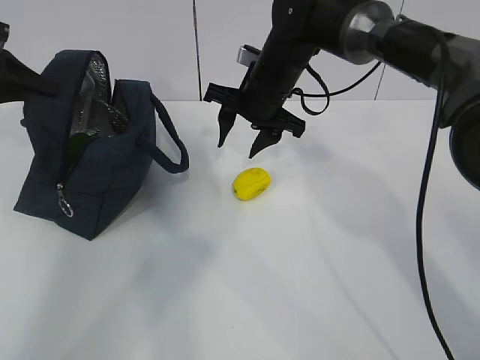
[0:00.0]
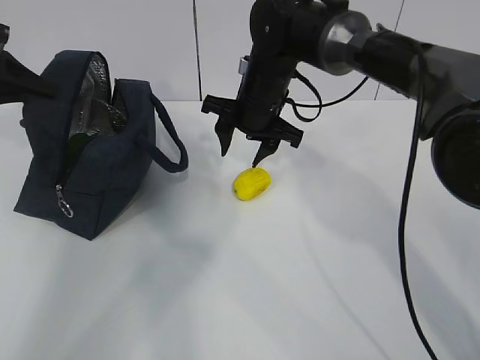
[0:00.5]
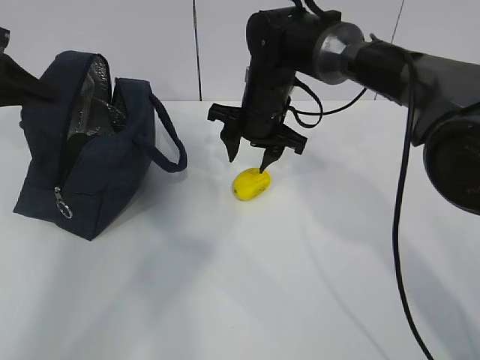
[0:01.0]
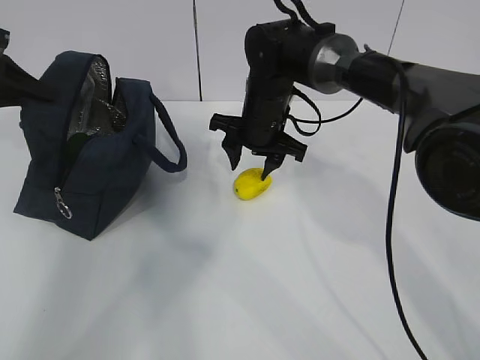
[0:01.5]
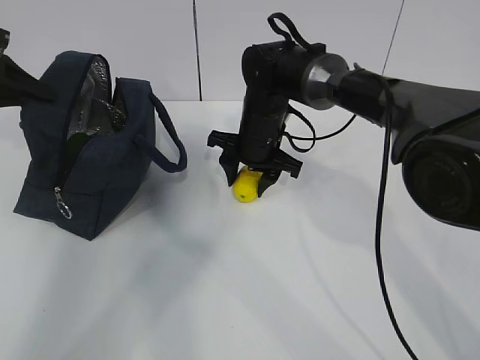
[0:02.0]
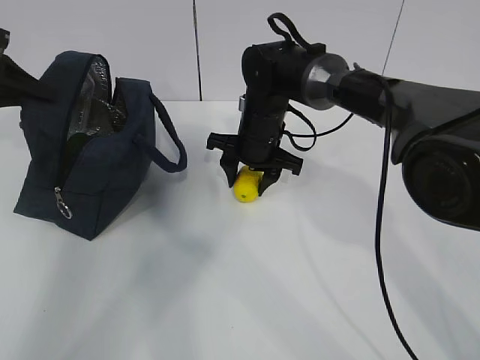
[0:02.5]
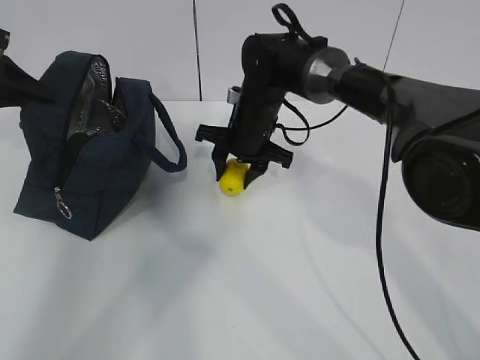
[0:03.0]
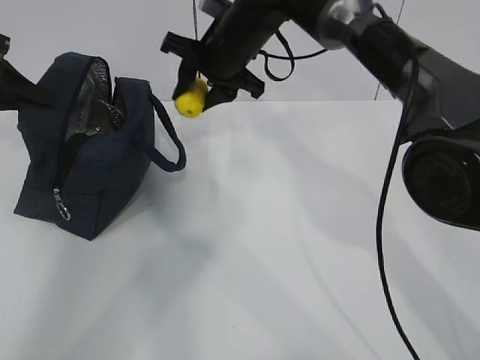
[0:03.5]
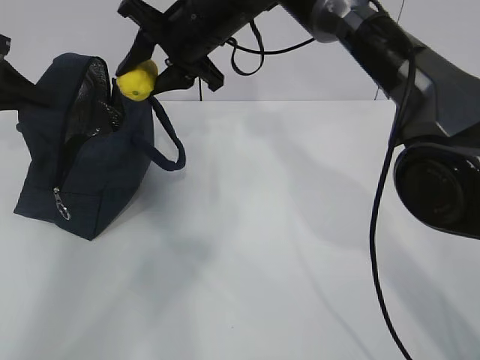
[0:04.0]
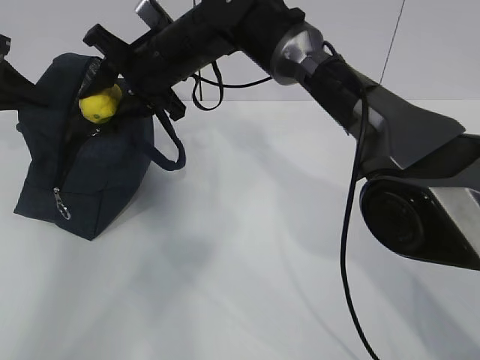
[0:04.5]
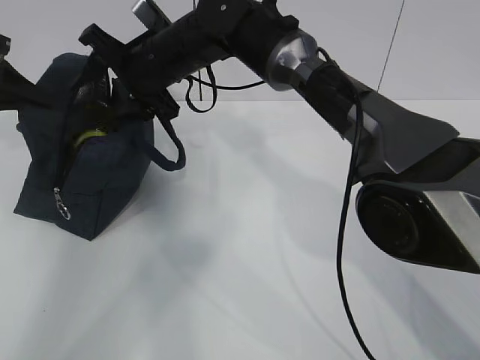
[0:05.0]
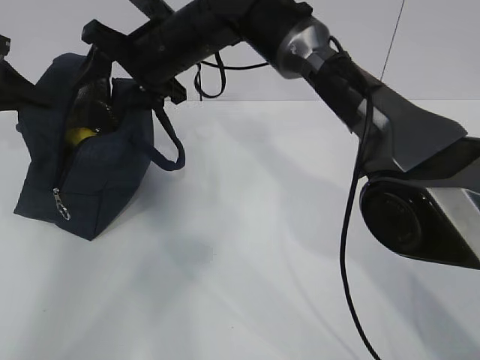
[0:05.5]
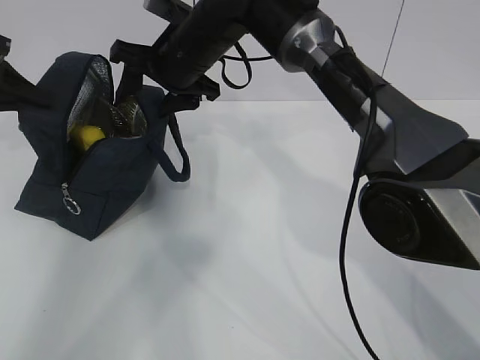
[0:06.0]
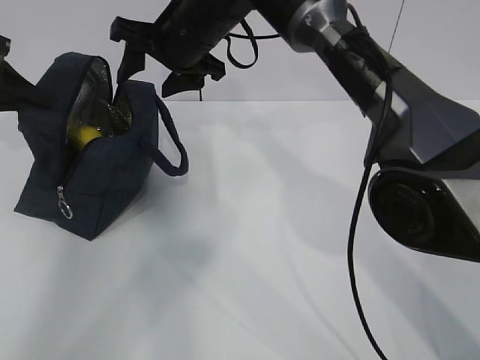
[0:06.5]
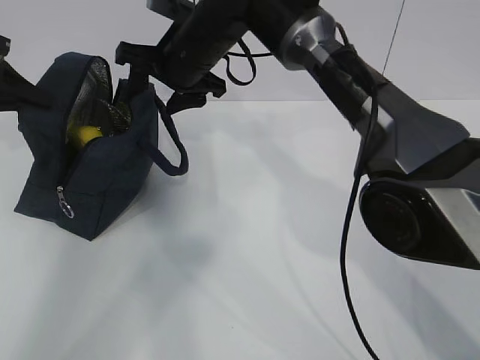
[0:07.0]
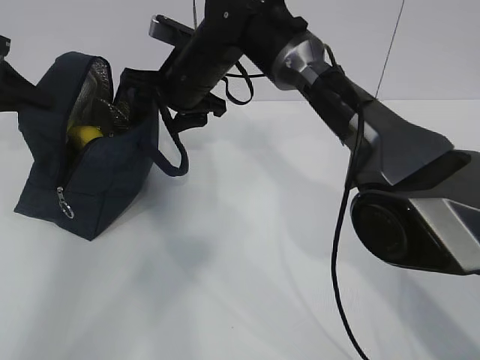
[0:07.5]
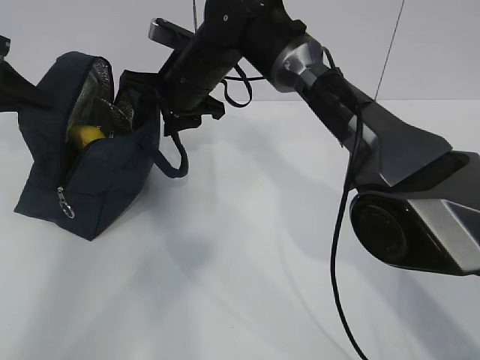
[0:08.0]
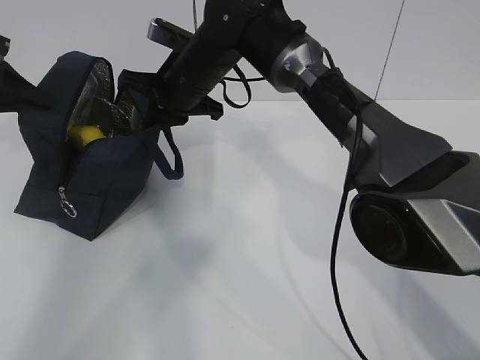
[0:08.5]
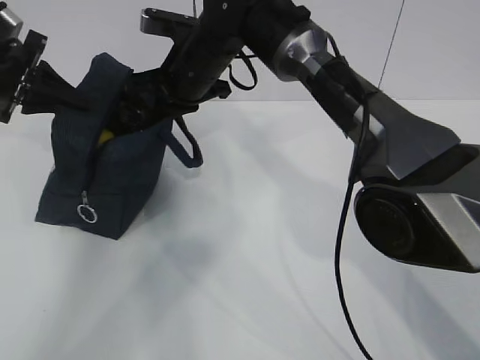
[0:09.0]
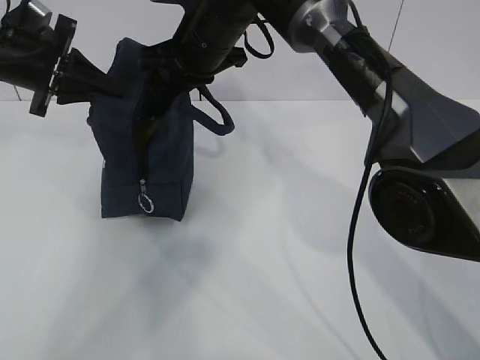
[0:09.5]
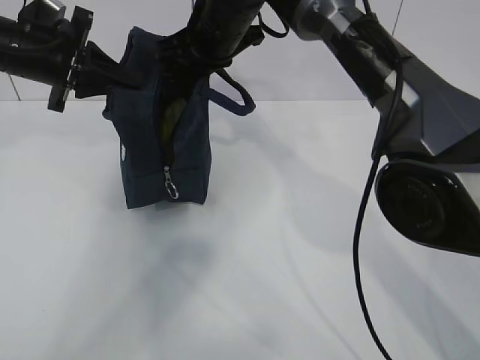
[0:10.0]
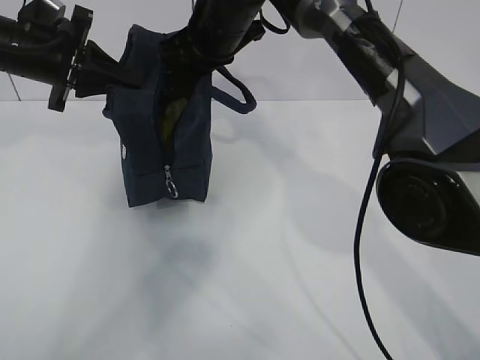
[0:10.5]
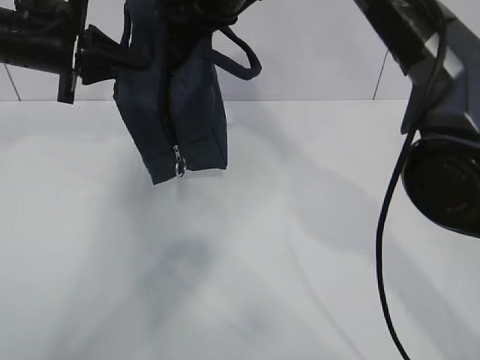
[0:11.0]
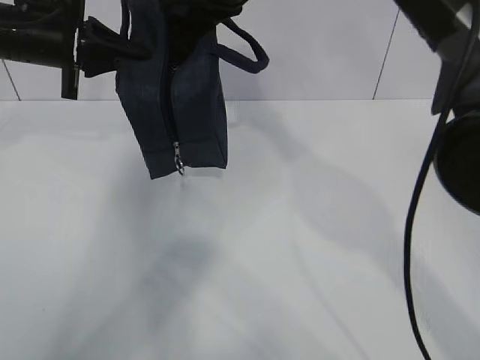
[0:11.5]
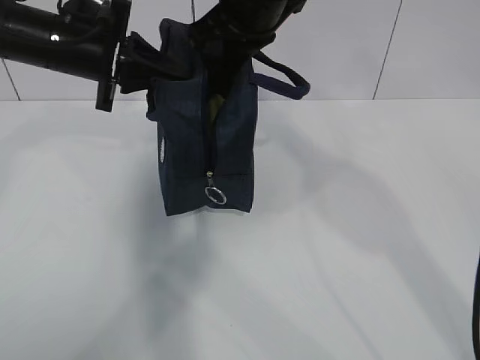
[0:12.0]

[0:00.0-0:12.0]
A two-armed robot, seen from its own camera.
Step, 0:00.0 to 0:02.5: Grasp the lemon with the right gripper.
Step, 0:03.0 to 0:06.5: Place the lemon into the package with the right gripper.
0:00.0 to 0:02.0: The right gripper is displaced downward by about 5 cm.
0:02.0 to 0:04.0: The right gripper goes roughly 15 cm upward.
0:06.0 to 0:08.0: There are only small adjustments of the grippers.
0:08.0 to 0:10.0: The right gripper goes roughly 5 cm upward, and closes up, while the left gripper shifts approximately 10 cm to the right.
0:10.0 to 0:12.0: The left gripper moves to the right, approximately 5 cm. Meanwhile the right gripper goes about 5 cm upward.

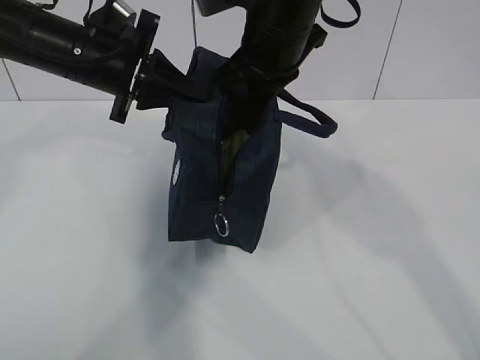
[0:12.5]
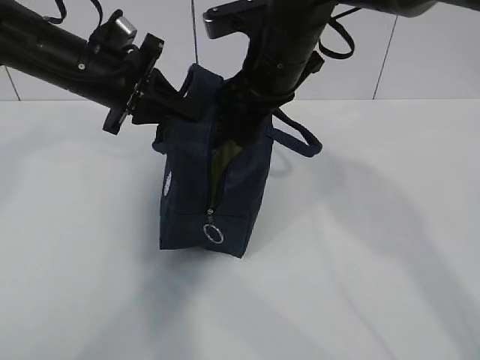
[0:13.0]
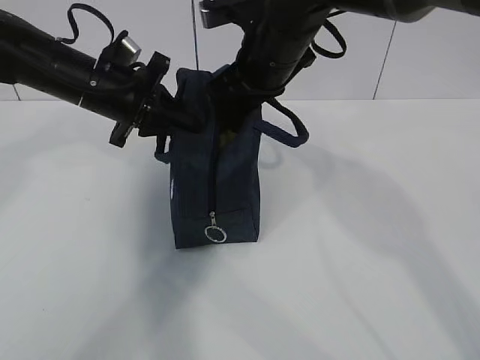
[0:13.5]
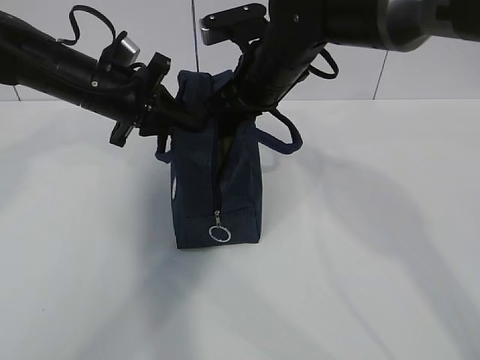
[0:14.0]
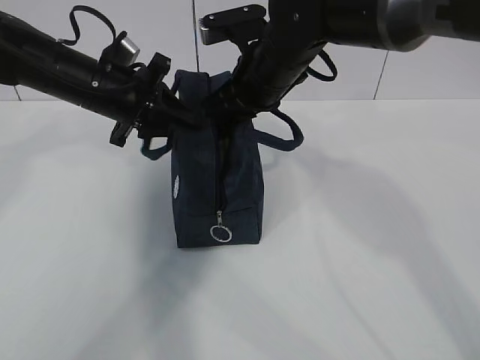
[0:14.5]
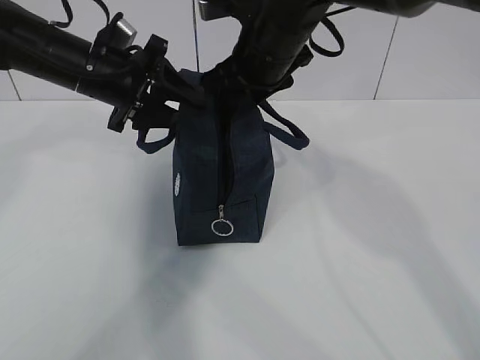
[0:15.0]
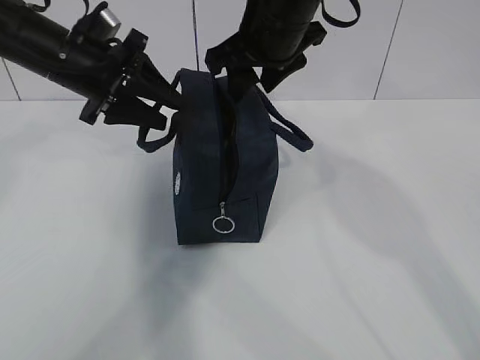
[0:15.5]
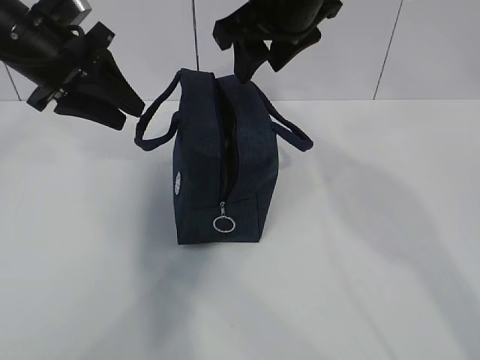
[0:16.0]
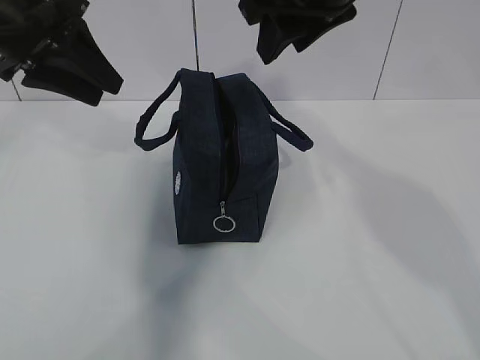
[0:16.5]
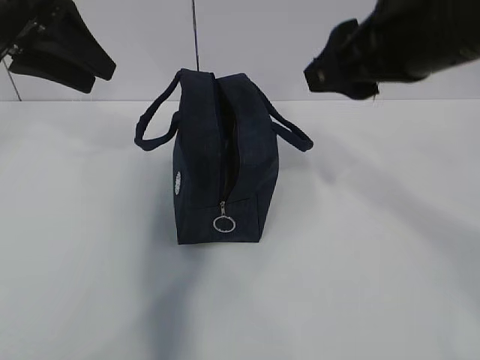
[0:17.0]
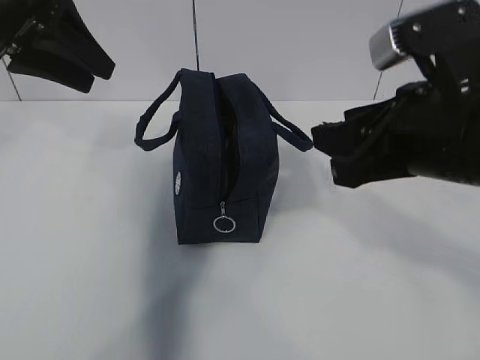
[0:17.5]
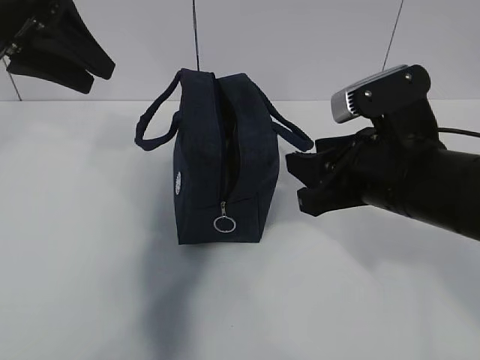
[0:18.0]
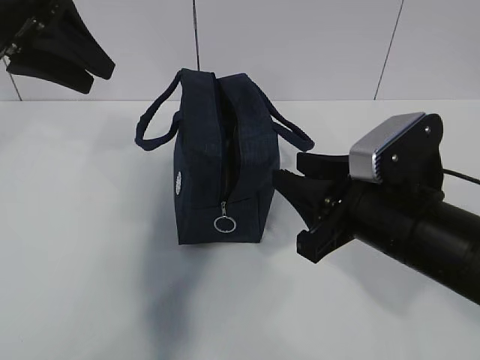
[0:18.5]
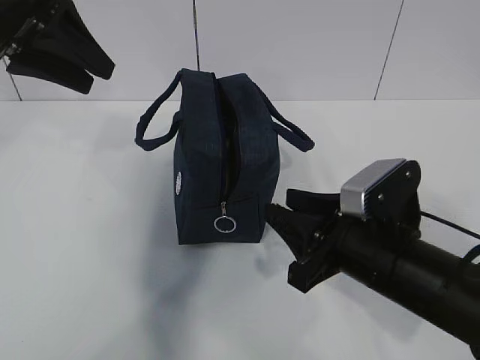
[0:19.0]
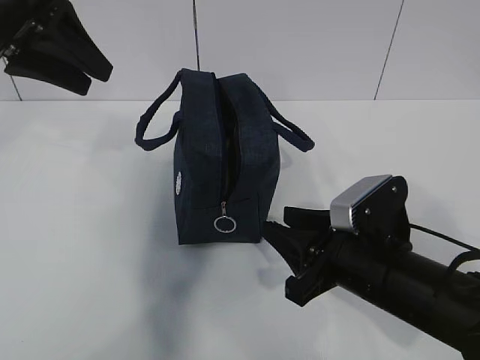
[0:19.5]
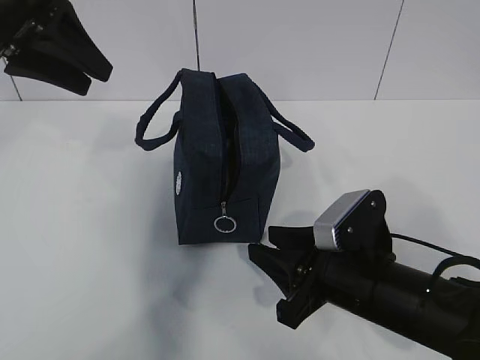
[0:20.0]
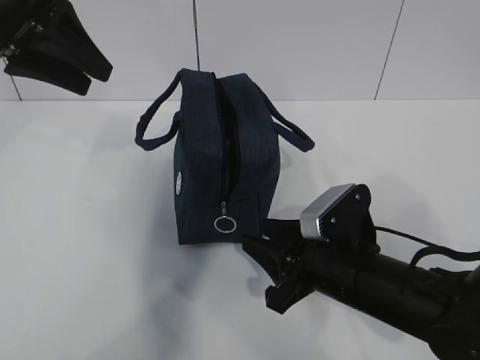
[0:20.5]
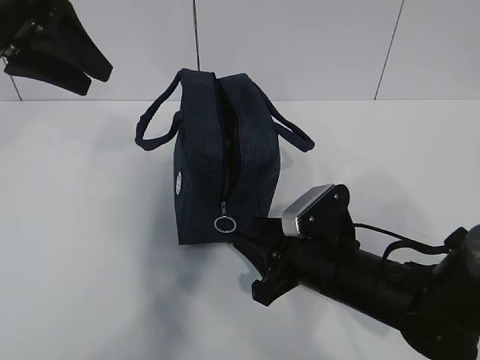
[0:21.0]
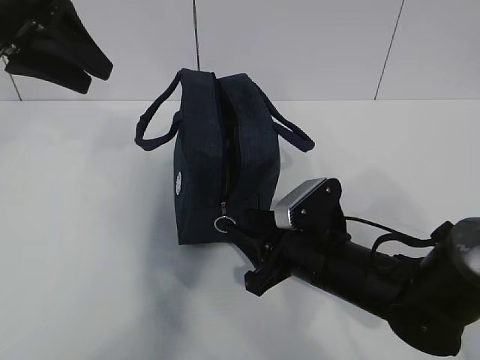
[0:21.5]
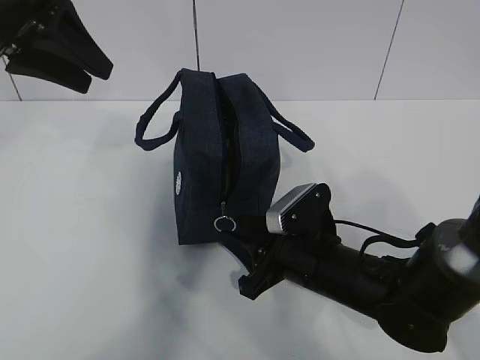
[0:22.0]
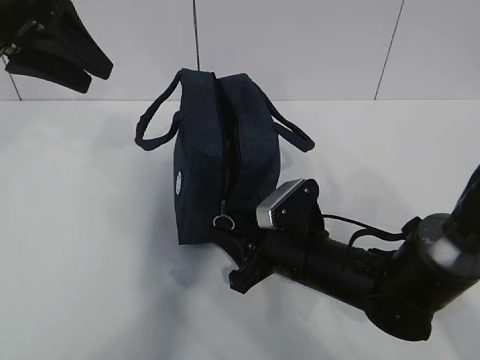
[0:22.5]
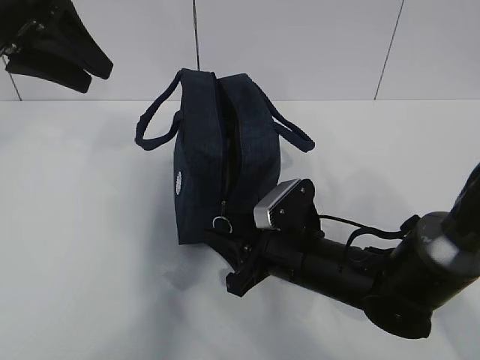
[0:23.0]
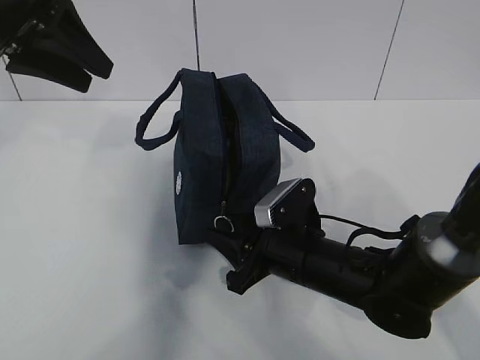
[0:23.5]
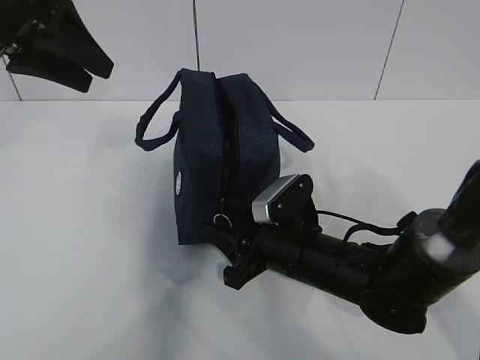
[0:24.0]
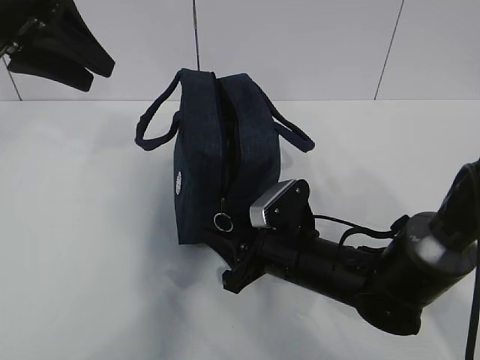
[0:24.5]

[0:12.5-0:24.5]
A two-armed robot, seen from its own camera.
0:12.5 to 0:14.5: The left gripper moves roughly 5 cm. Meanwhile the right gripper is displaced downward by roughly 5 cm.
0:14.5 to 0:16.5: The right gripper shifts roughly 15 cm upward and backward, and opens up. Meanwhile the left gripper heads upward, to the left and backward, covering about 15 cm, and opens.
0:16.5 to 0:18.5: The right gripper is displaced downward and backward by some 20 cm.
0:18.5 to 0:20.5: The right gripper travels downward by some 10 cm.
0:20.5 to 0:22.5: The right gripper moves some 5 cm.
0:22.5 to 0:24.5: Neither gripper changes place.

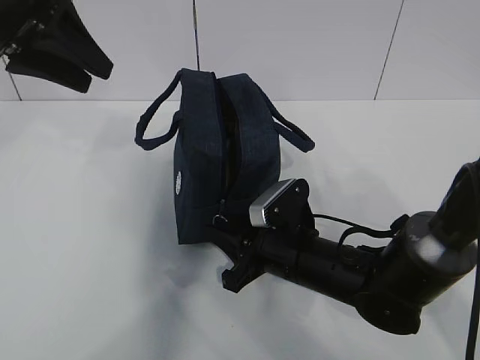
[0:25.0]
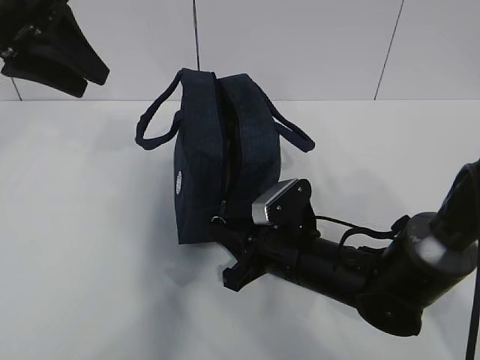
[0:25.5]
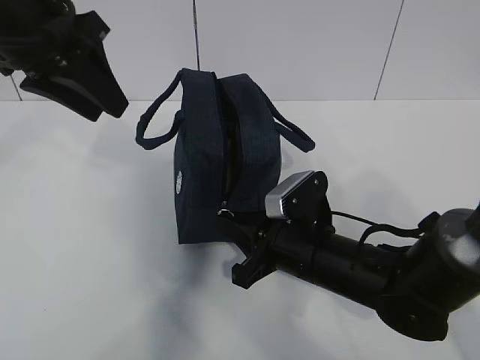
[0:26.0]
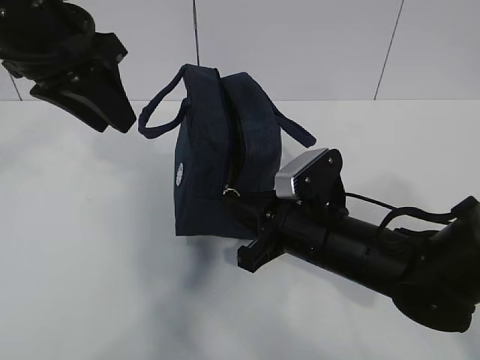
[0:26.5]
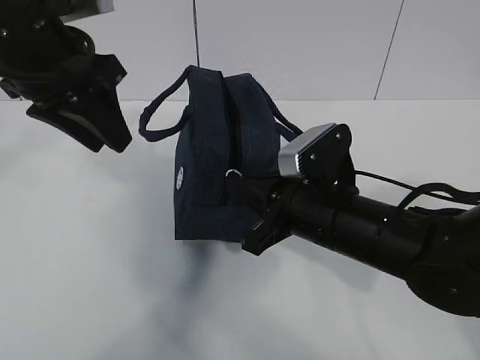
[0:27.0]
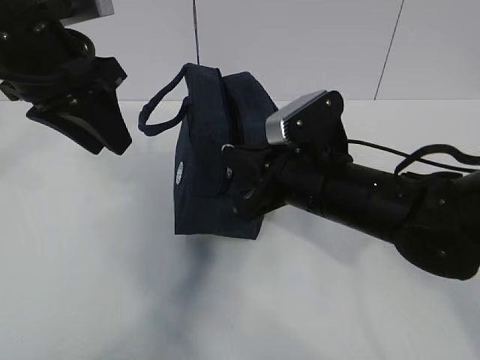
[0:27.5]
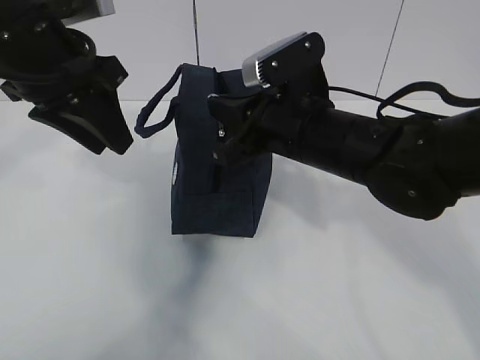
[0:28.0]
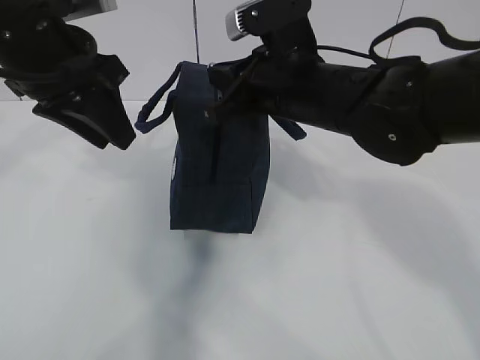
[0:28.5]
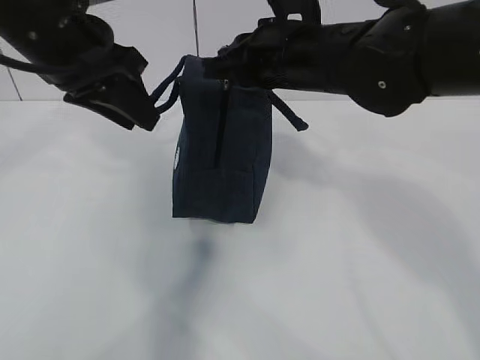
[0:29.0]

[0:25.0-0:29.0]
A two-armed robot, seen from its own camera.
0:25.0 to 0:27.0: The left gripper goes roughly 5 cm to the right. The right gripper goes approximately 10 cm upward.
0:27.0 to 0:29.0: The right gripper moves upward and forward, approximately 15 cm.
